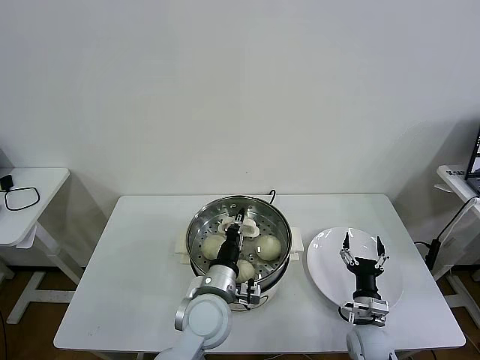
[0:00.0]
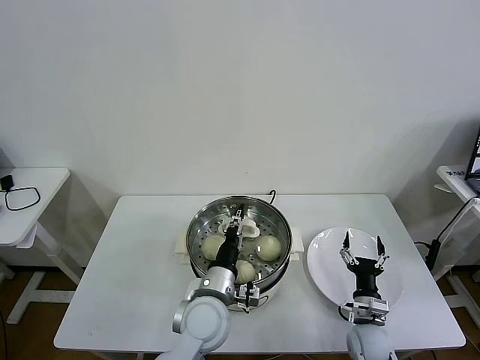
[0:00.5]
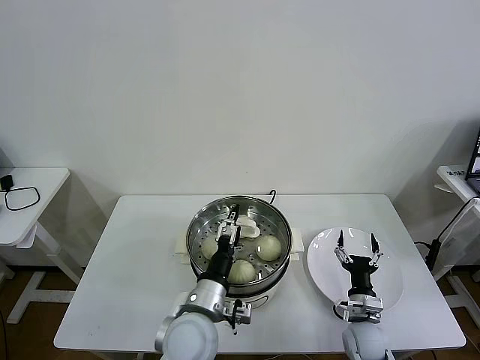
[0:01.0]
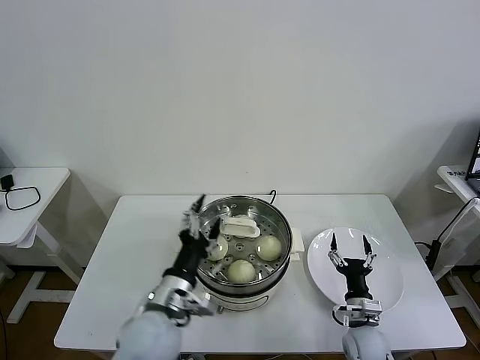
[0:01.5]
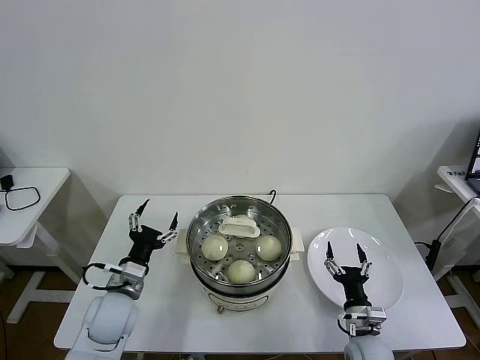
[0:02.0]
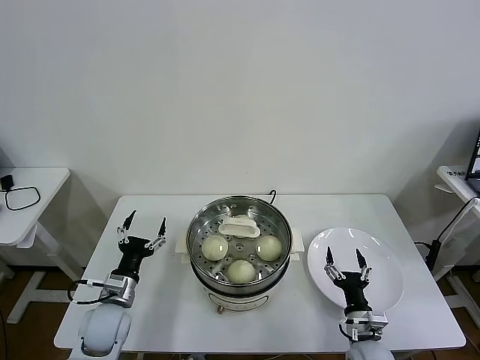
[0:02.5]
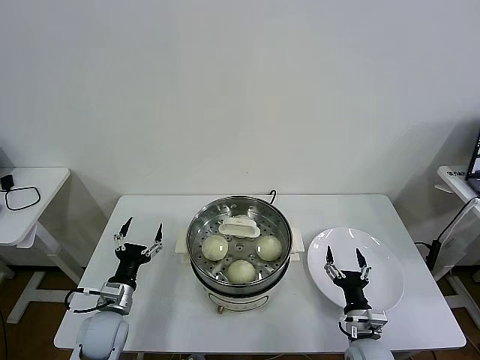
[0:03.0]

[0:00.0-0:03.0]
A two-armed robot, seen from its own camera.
Task of the whole recording: take steamed baozi put them in steamer then cover it.
0:00.0 to 0:01.5: The left gripper moves to the left and backward, about 10 cm, and opens up.
0:01.5 to 0:03.0: The left gripper travels to the left and downward by about 20 cm.
